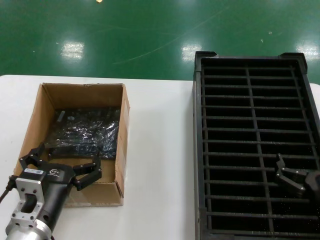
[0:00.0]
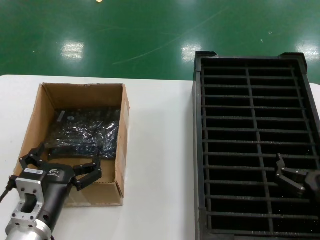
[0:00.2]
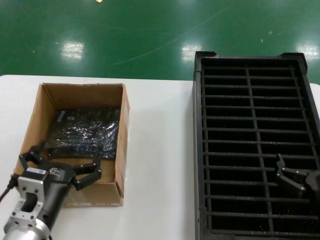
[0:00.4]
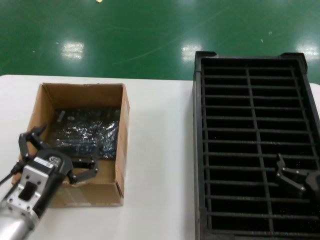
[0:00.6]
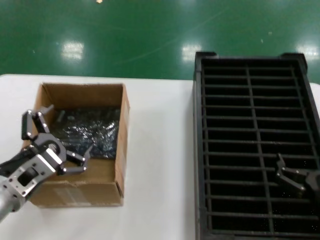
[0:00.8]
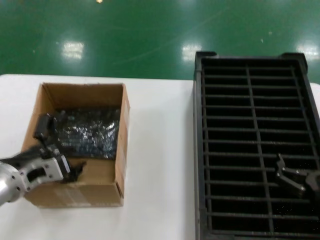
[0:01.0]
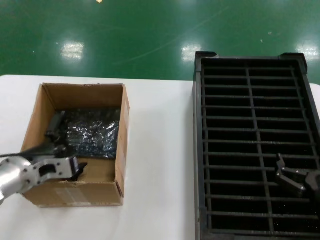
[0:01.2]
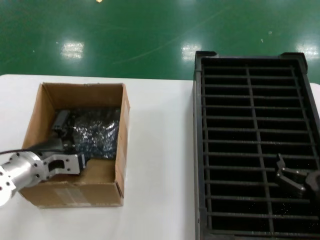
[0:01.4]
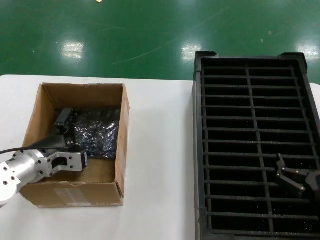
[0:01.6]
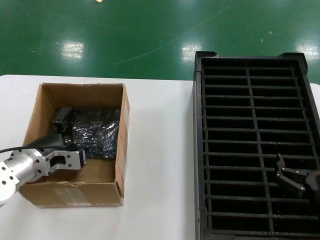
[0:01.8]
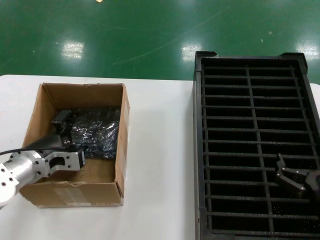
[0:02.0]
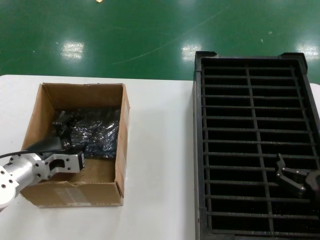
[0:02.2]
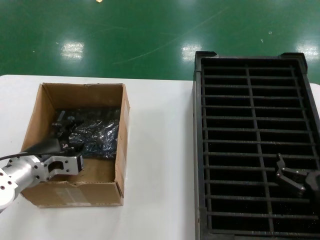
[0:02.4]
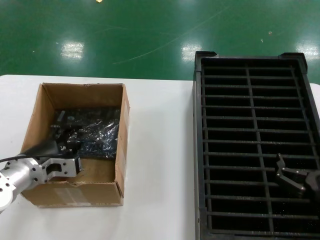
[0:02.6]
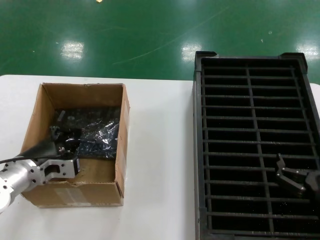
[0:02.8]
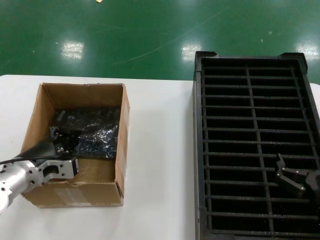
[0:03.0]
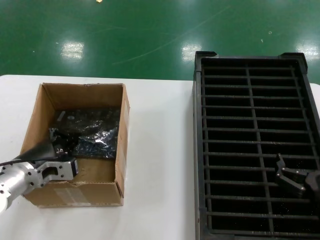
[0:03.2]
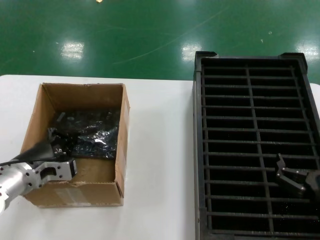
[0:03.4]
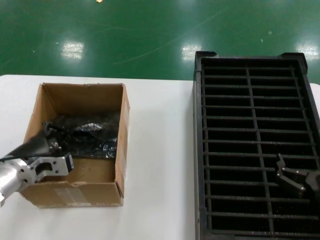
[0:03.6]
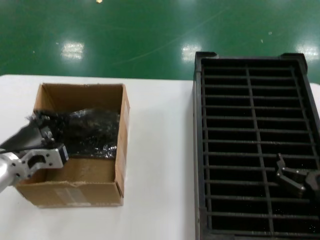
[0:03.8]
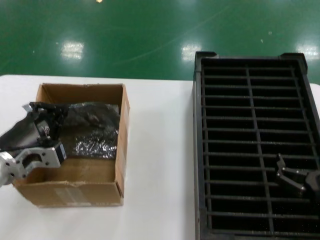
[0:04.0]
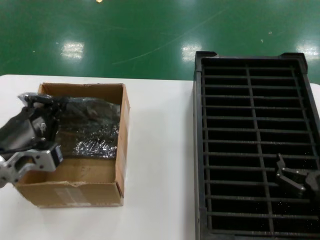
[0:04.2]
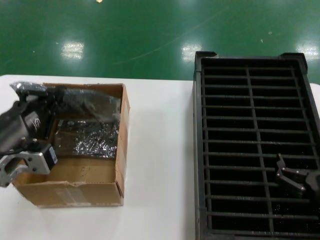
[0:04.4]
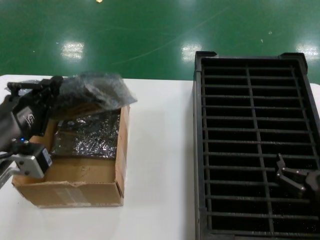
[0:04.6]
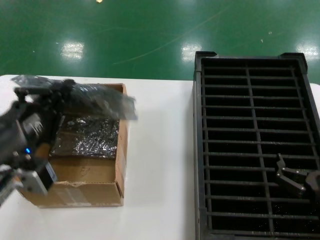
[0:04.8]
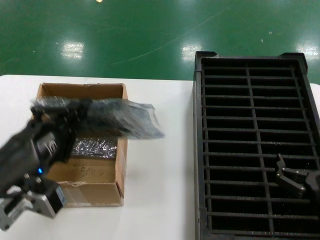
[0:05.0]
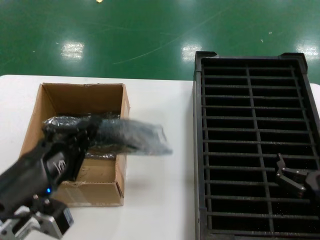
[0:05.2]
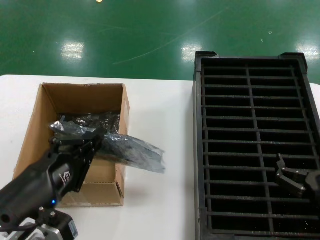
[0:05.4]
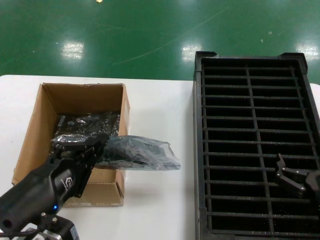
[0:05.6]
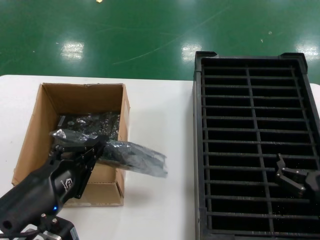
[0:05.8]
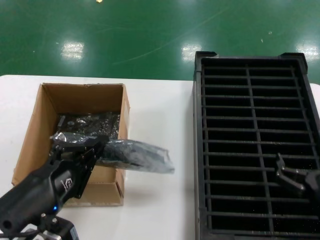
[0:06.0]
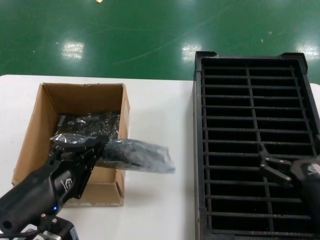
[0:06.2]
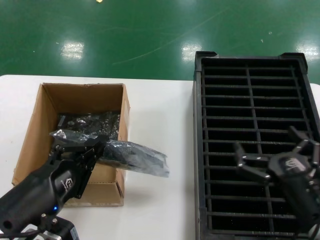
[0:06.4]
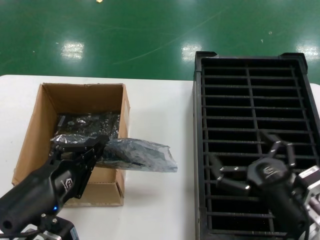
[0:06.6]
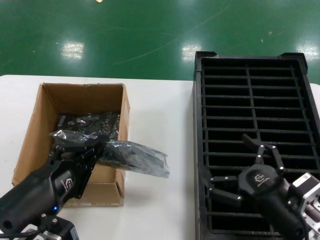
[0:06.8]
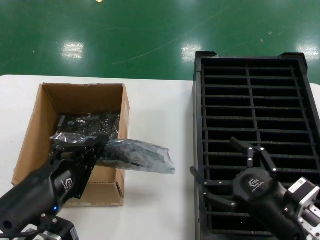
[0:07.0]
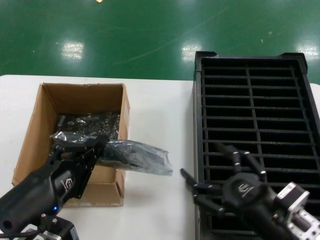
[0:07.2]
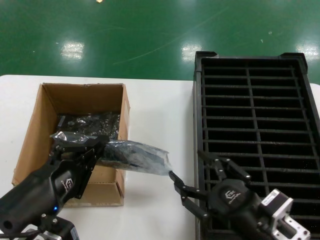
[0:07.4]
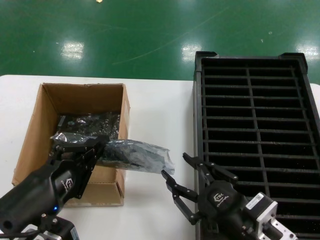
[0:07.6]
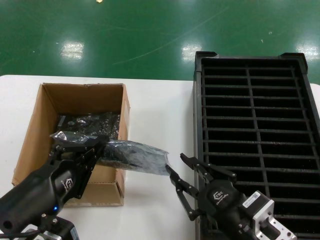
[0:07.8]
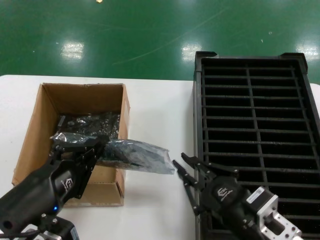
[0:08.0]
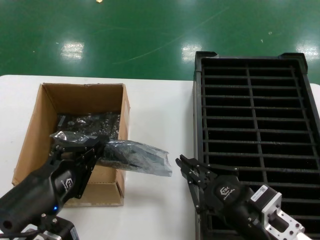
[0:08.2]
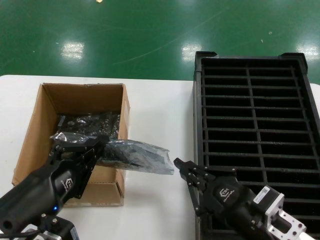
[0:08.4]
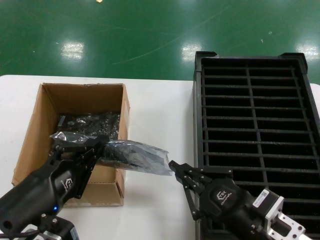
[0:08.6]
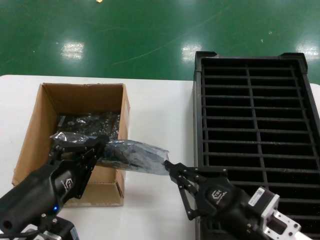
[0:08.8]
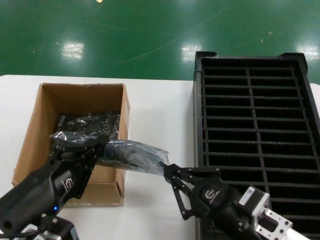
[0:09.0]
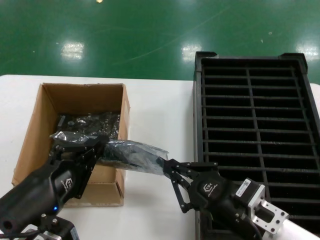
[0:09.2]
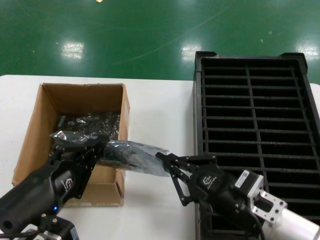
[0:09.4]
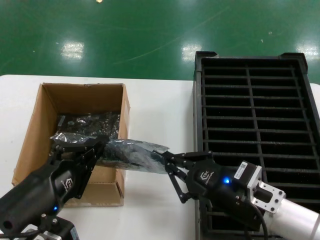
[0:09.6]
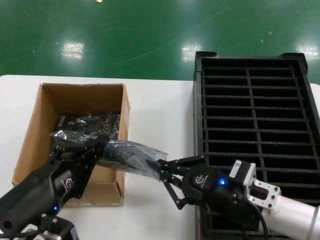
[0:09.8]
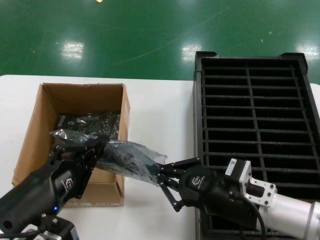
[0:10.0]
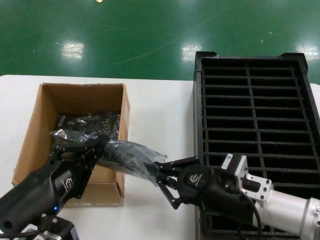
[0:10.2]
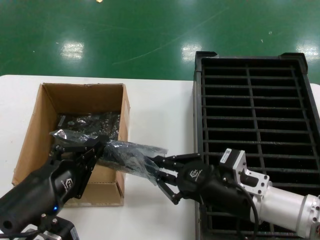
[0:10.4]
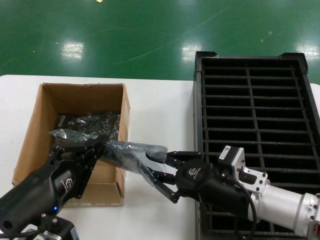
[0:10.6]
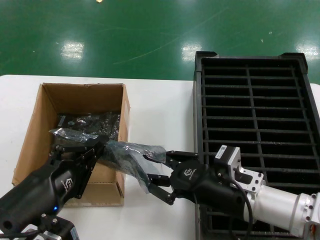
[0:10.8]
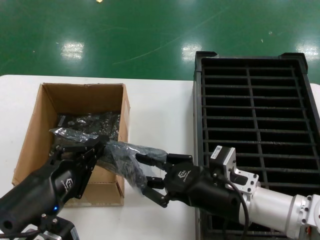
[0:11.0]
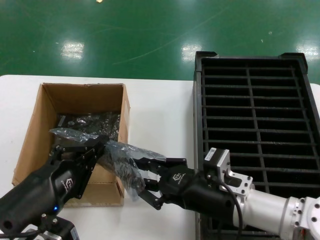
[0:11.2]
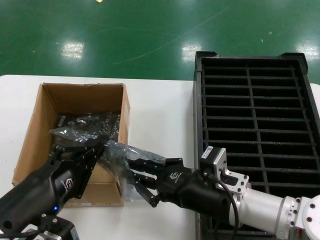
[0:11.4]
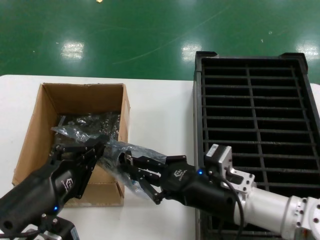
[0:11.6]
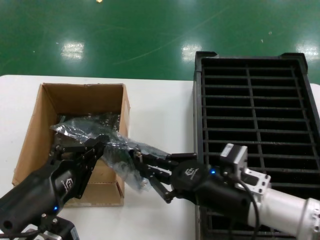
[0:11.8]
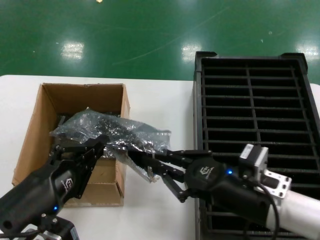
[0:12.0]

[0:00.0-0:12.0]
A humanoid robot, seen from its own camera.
Task of the whole recording: take out graphics card from box remove packaging put into black container.
Step, 0:00.0 to 0:03.2: Grasp the bag.
Step, 0:03.4 to 0:06.0: Lift the bag.
0:00.0 to 0:01.6: The left hand moves forward and to the left, some 15 cm.
0:01.6 to 0:03.0: The hands make only small movements.
0:03.0 to 0:04.4: The left hand heads backward and upward, covering some 15 cm.
0:04.4 to 0:06.0: The left hand moves backward, some 10 cm.
0:06.0 to 0:07.6: The right hand is displaced to the left by some 10 cm.
0:07.6 to 0:09.0: The hands make only small movements.
0:09.0 to 0:10.4: The right hand moves forward, about 5 cm.
0:10.4 to 0:12.0: The hands make only small movements.

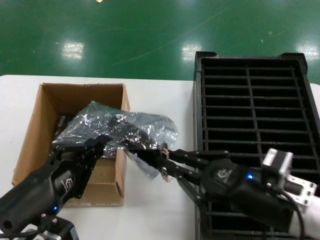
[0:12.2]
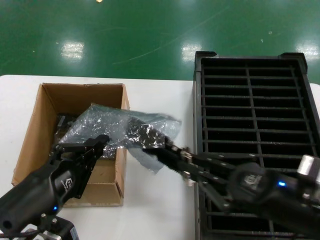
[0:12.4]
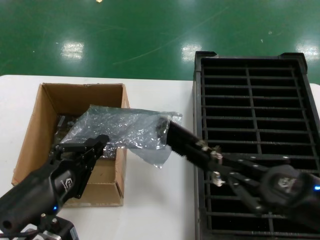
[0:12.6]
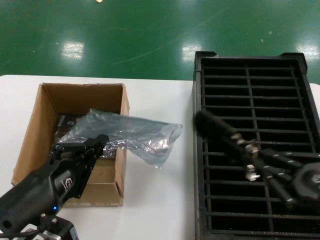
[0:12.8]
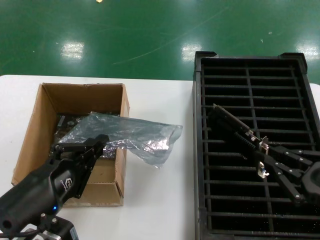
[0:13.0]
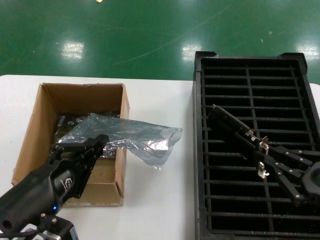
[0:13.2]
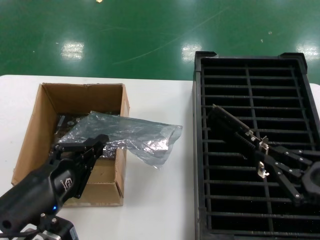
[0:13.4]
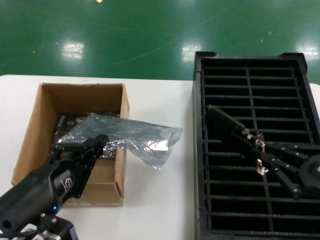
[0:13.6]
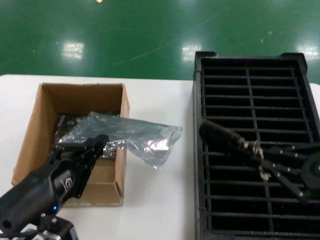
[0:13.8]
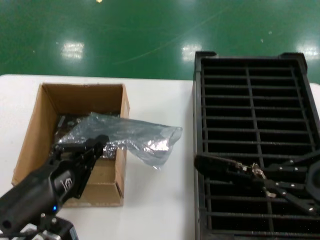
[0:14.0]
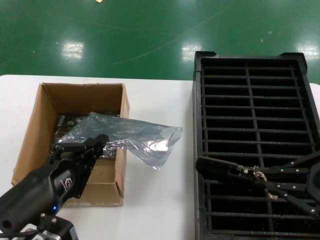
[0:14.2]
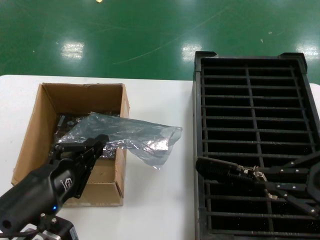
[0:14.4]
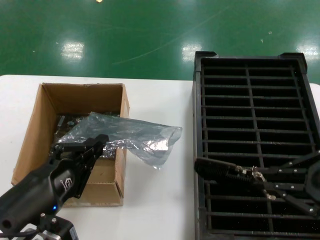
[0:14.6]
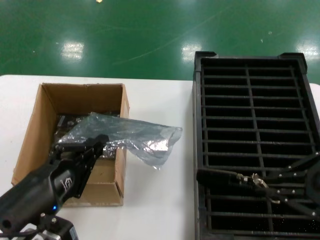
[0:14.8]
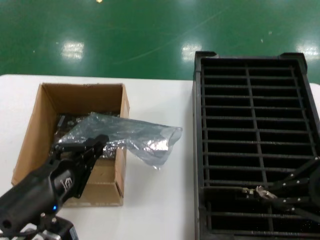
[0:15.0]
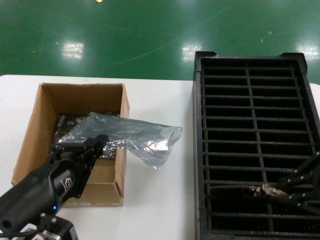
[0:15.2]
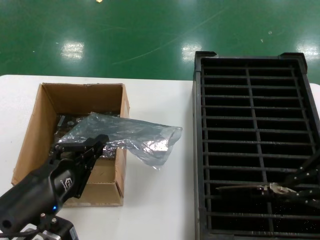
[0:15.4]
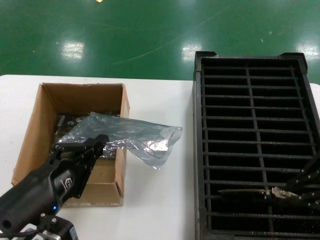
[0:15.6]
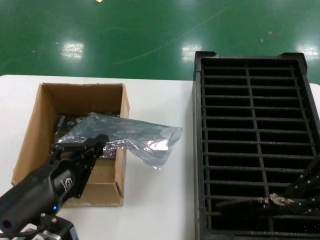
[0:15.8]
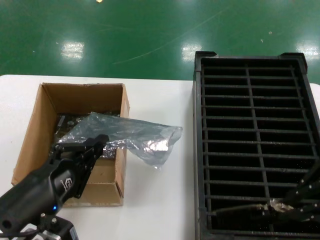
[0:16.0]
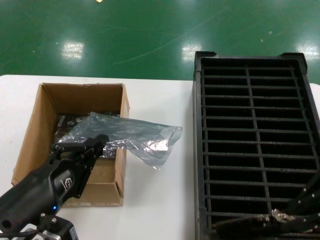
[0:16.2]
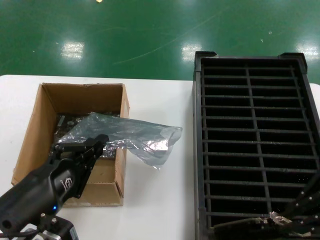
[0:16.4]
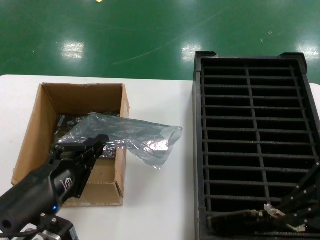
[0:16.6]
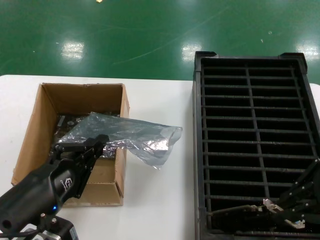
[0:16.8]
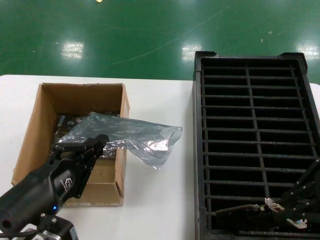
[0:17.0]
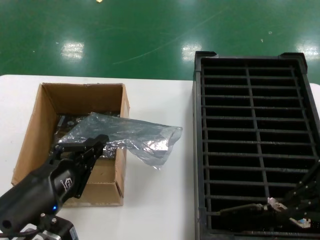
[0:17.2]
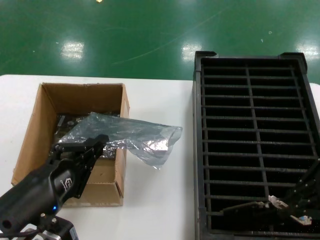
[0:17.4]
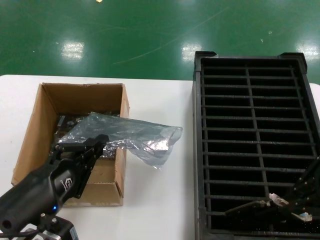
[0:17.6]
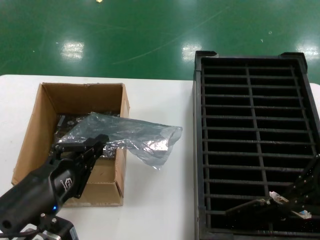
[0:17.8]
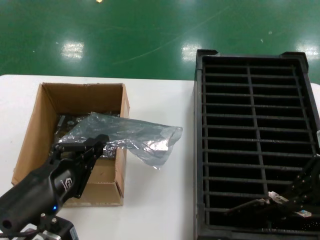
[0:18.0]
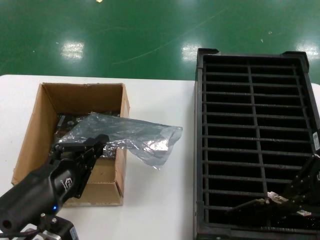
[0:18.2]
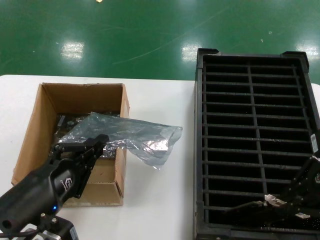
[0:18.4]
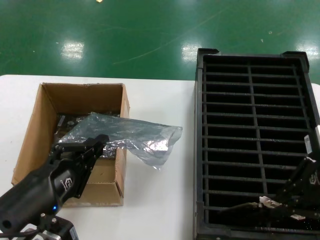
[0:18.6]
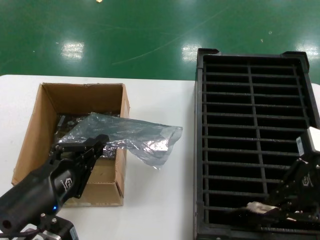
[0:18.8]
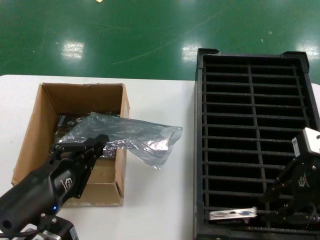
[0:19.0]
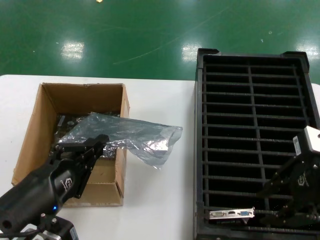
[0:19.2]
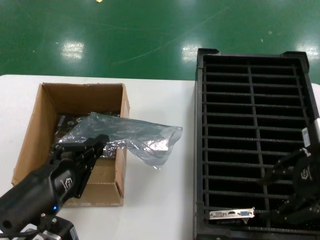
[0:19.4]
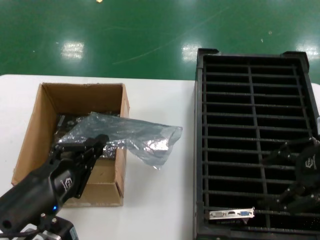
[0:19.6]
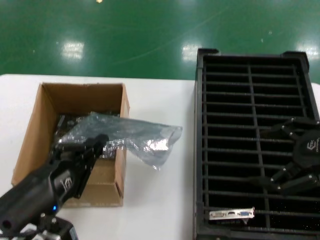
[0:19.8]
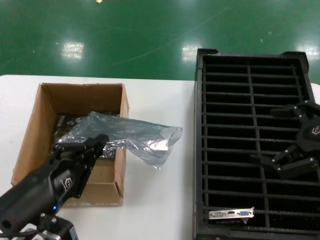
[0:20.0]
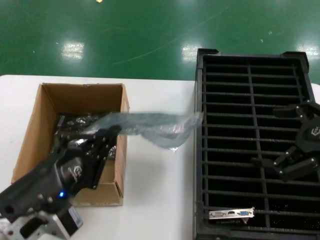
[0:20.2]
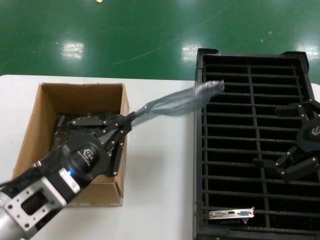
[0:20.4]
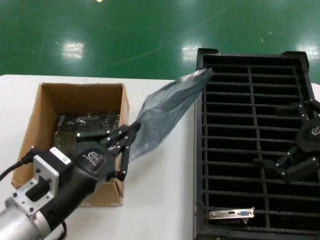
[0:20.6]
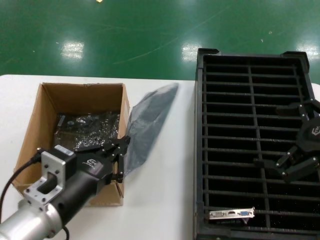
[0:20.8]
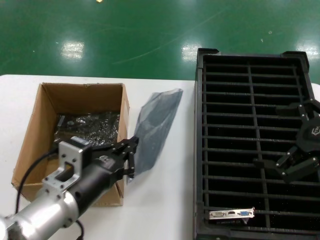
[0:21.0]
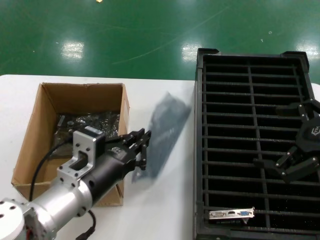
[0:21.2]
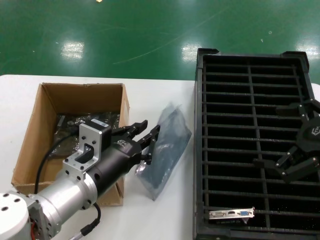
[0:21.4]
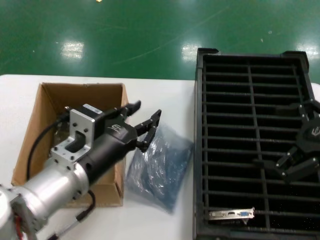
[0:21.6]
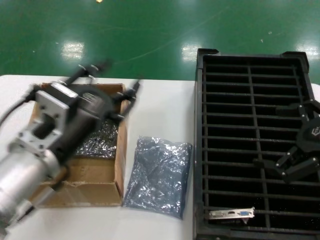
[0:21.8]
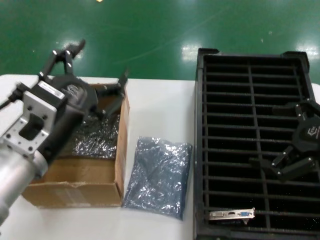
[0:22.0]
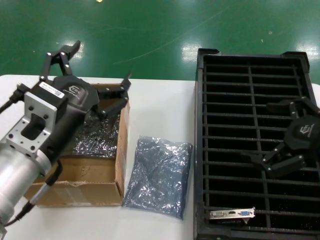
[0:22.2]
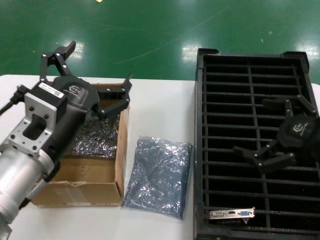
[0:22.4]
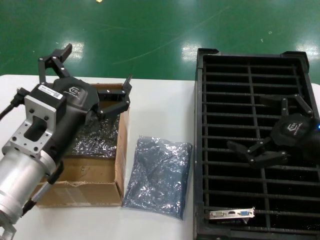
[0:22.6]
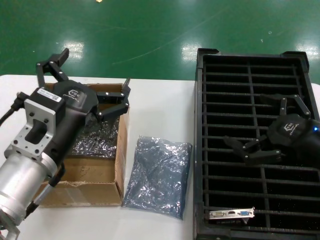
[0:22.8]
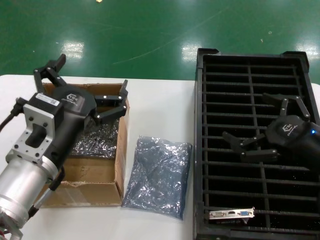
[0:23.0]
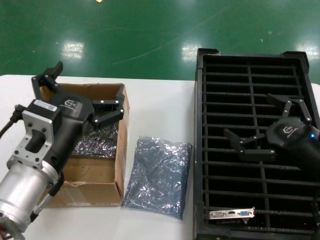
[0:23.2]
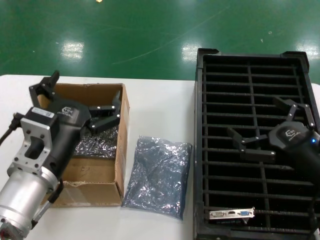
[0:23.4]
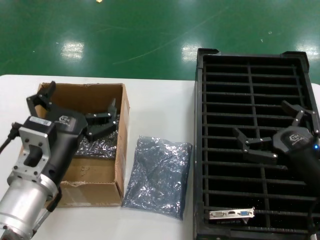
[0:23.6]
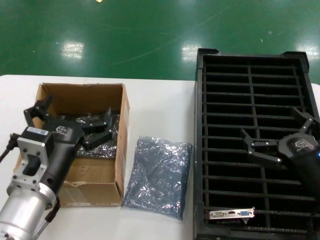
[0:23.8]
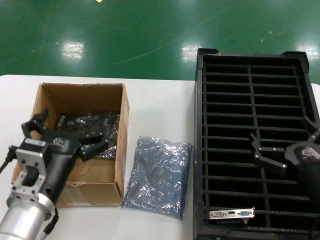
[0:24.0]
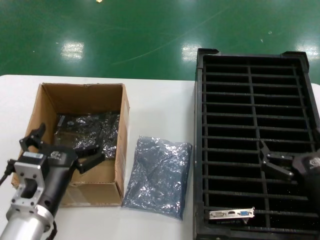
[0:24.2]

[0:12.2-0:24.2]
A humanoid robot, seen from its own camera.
Task of the whole recording: take out graphics card from box remove packaging put into black container.
Step, 0:13.0 to 0:19.4: Place the hard disk in the hard disk enclosure.
0:12.2 to 0:13.8: The right hand travels to the right and upward by approximately 15 cm.
0:13.8 to 0:15.2: The right hand shifts about 5 cm upward.
0:15.2 to 0:18.2: There are only small adjustments of the hands.
0:19.8 to 0:21.2: The left hand heads forward and to the right, covering roughly 10 cm.
0:21.2 to 0:22.6: The left hand goes roughly 5 cm upward; the right hand travels downward by about 5 cm.
0:22.6 to 0:24.2: Both hands move downward, about 15 cm.
